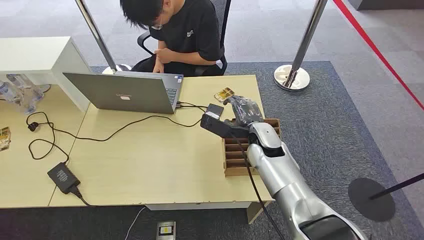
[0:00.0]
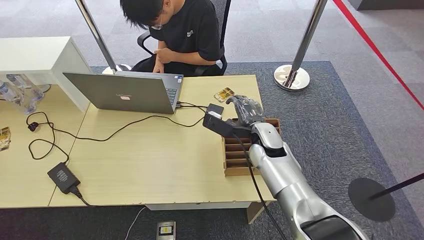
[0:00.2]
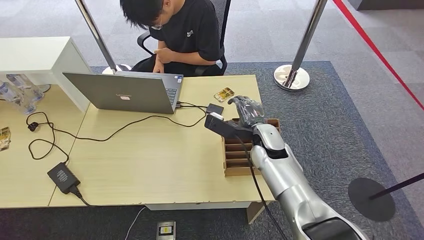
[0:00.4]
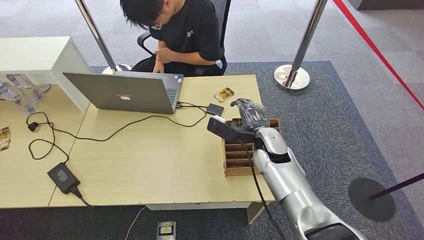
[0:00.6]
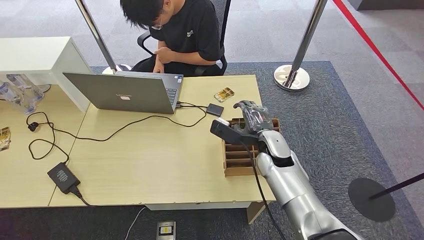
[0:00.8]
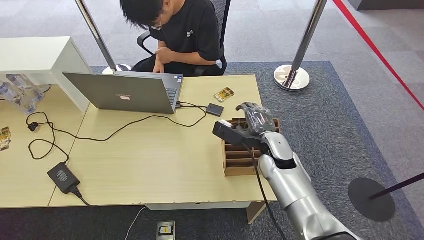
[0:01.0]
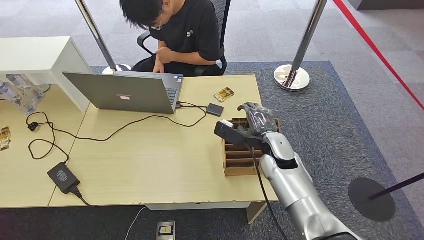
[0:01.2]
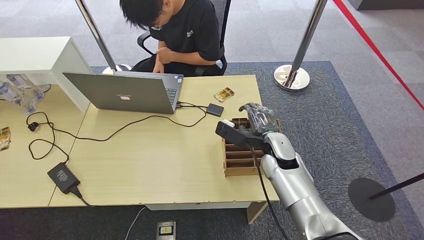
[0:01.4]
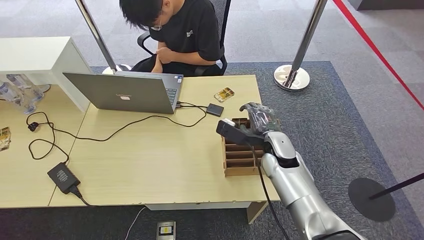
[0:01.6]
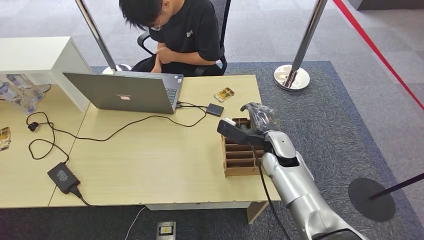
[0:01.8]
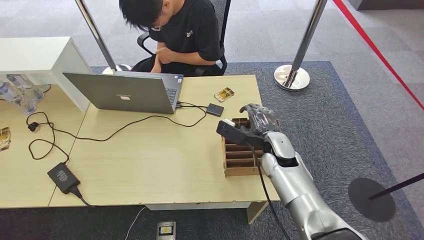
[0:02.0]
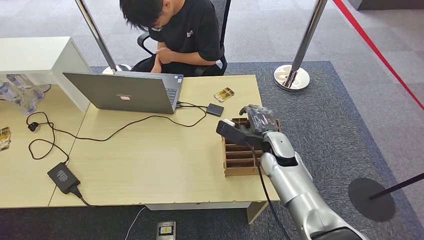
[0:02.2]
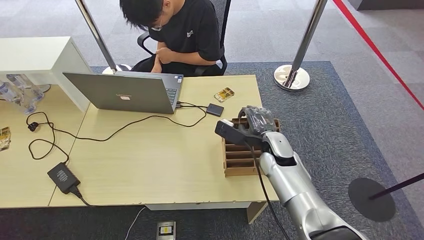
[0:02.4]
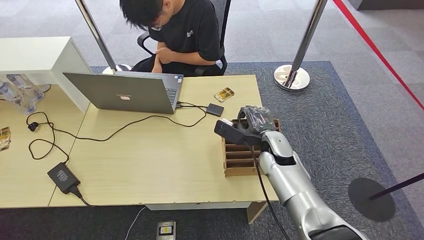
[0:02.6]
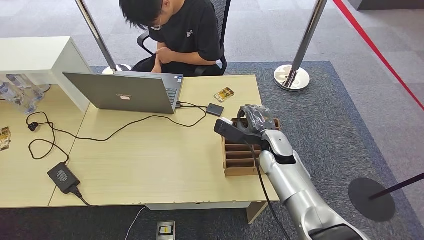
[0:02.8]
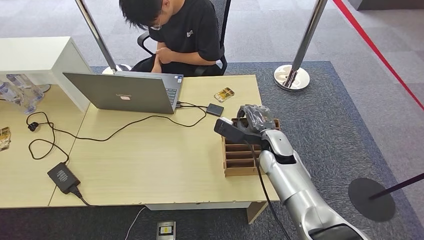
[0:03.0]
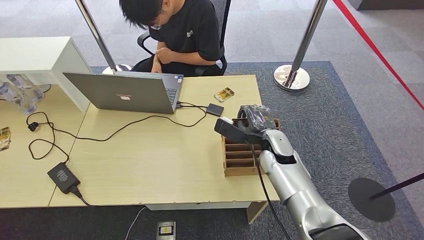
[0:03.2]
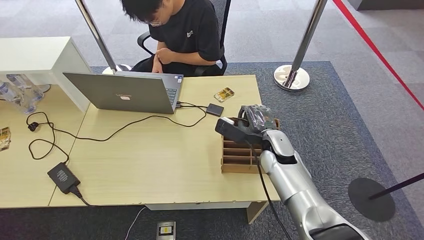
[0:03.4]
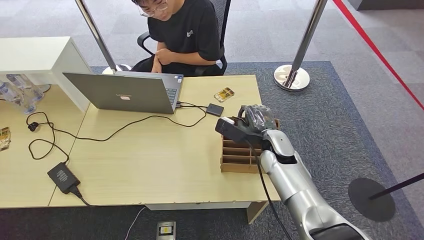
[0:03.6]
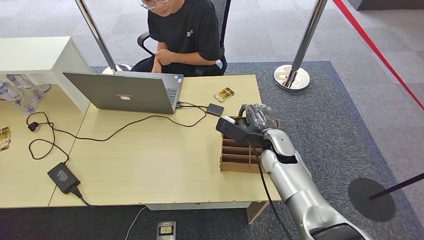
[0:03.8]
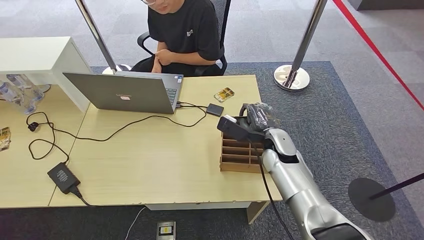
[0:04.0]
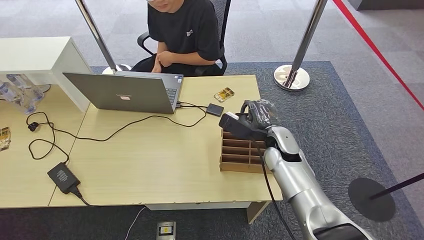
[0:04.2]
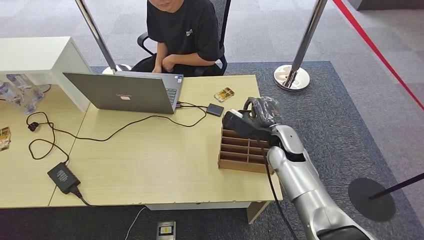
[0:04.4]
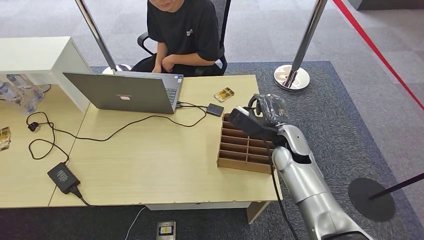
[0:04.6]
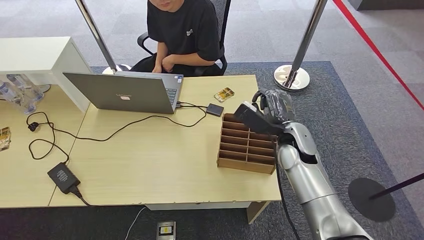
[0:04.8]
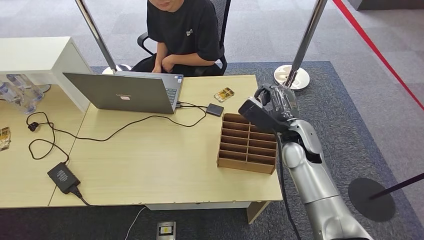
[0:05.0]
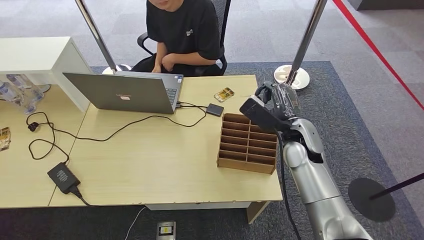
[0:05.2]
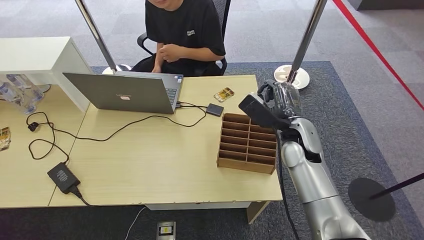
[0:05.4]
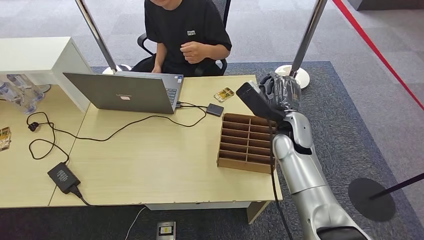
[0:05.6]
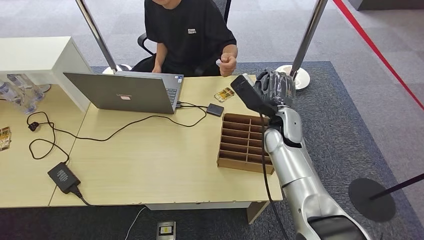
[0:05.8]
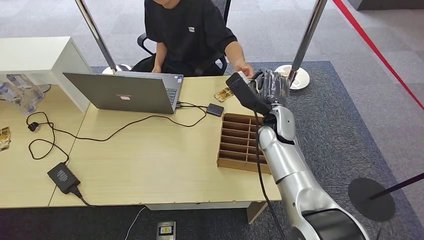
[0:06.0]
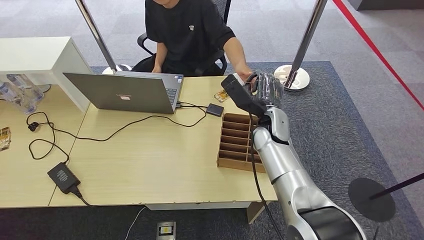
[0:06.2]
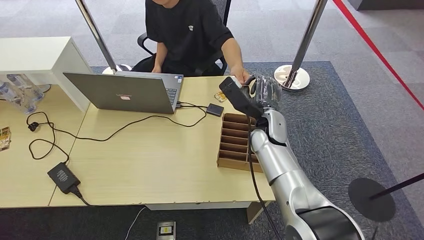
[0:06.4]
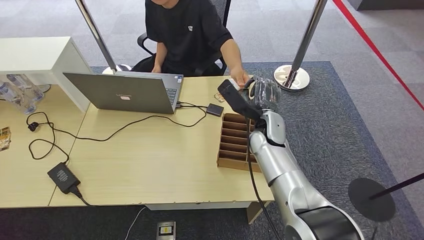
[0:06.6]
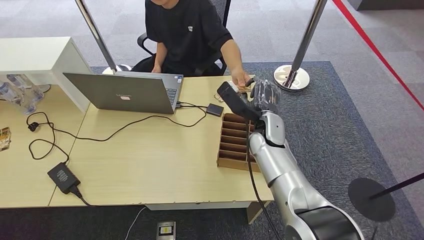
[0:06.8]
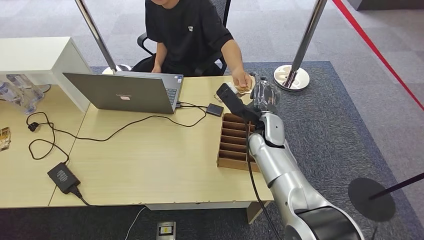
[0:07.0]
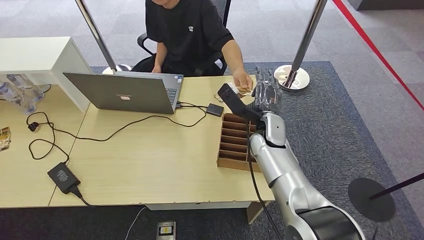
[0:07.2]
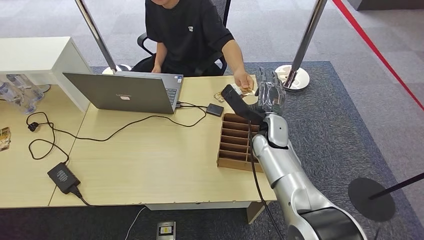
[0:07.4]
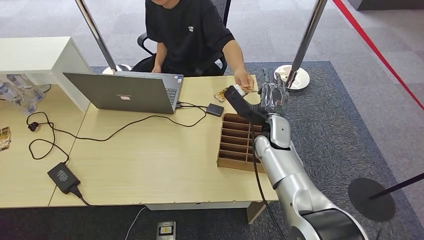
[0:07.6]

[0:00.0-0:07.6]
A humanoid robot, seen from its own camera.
Step, 0:00.0 to 0:05.2: Pick up the key card from the card box.
Step, 0:05.6 to 0:07.6: Hand the key card to the target.
0:01.6 to 0:03.0: Neither hand changes place.
0:03.0 to 0:04.6: The hands move only a little.
0:04.6 to 0:06.0: The right hand goes about 5 cm upward.
0:06.0 to 0:07.6: The hands move only a little.

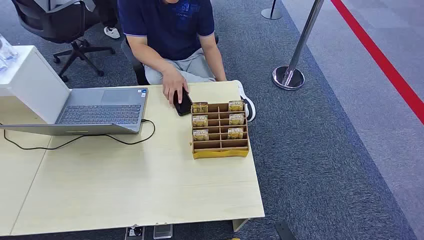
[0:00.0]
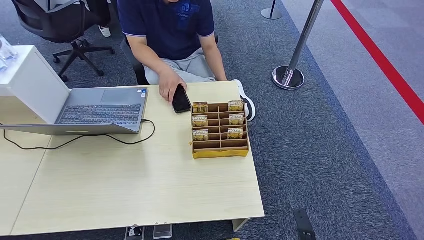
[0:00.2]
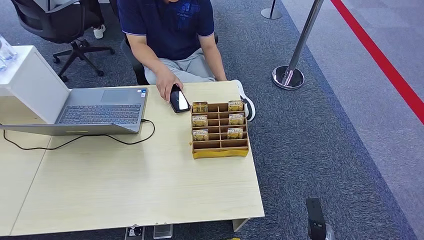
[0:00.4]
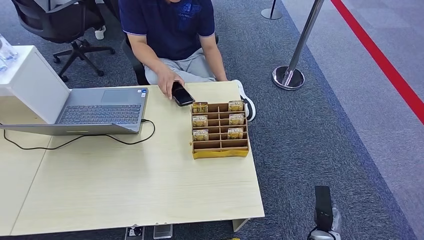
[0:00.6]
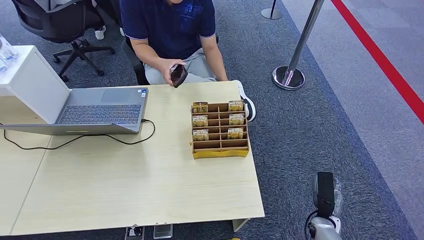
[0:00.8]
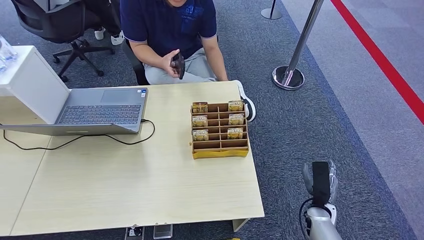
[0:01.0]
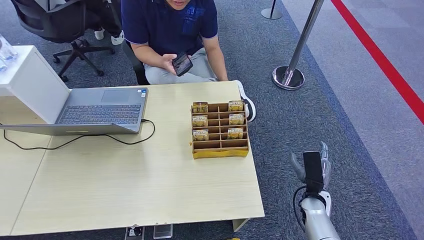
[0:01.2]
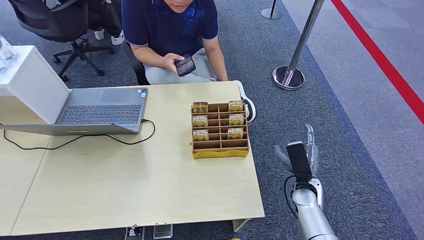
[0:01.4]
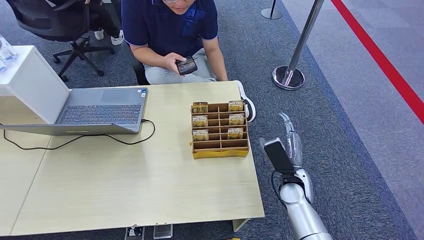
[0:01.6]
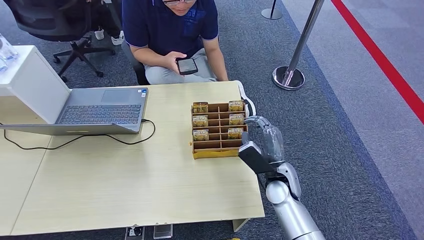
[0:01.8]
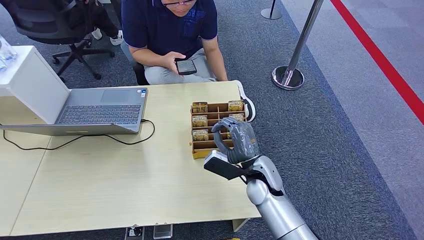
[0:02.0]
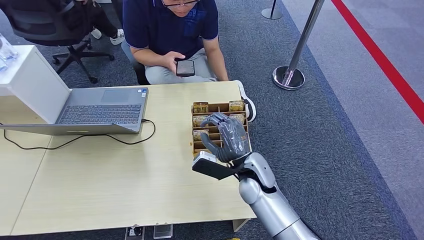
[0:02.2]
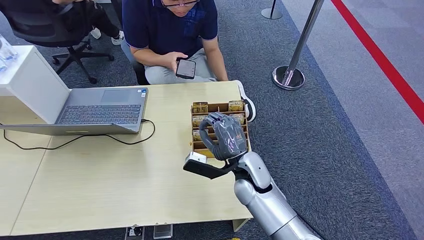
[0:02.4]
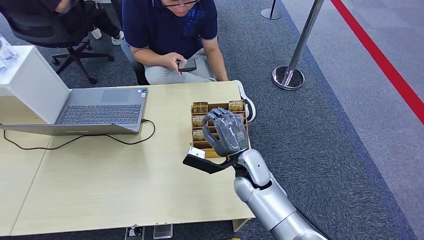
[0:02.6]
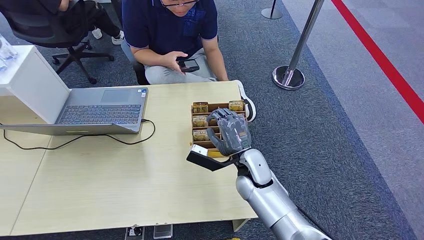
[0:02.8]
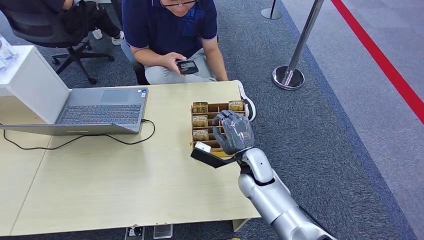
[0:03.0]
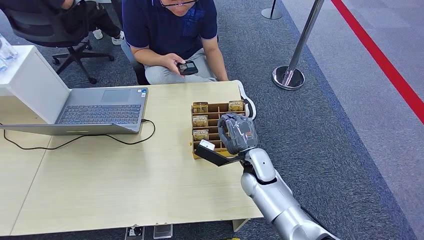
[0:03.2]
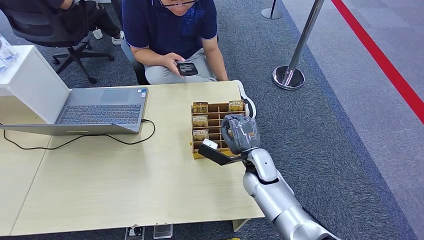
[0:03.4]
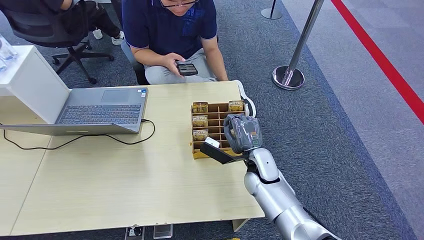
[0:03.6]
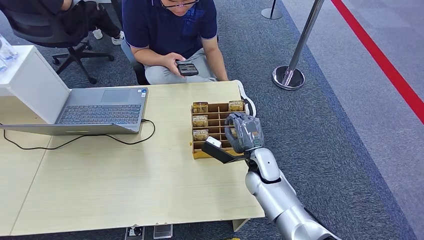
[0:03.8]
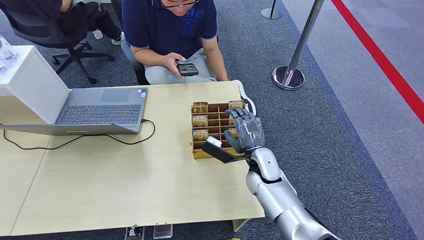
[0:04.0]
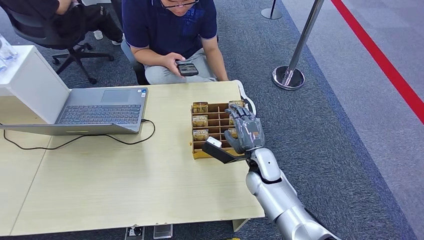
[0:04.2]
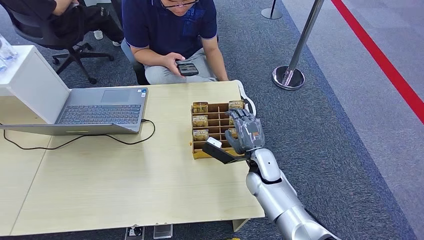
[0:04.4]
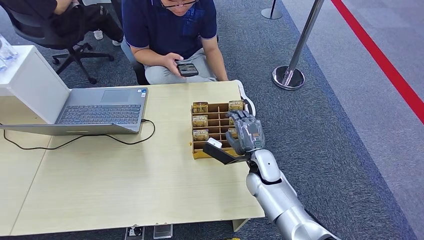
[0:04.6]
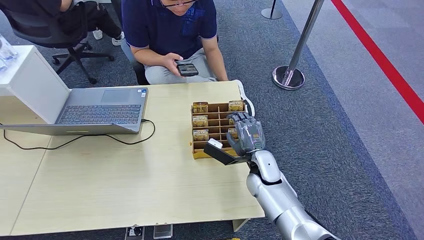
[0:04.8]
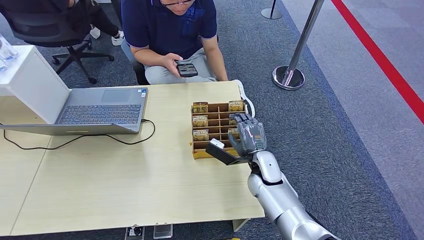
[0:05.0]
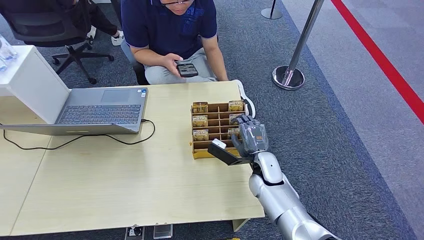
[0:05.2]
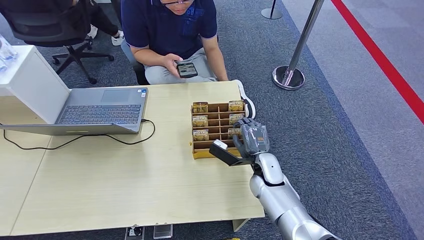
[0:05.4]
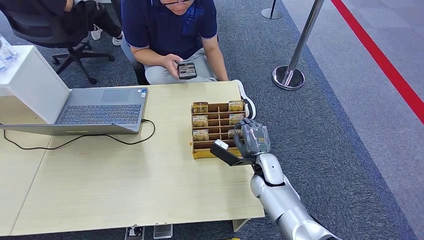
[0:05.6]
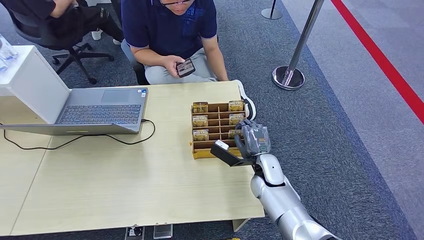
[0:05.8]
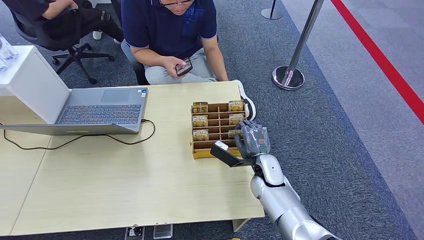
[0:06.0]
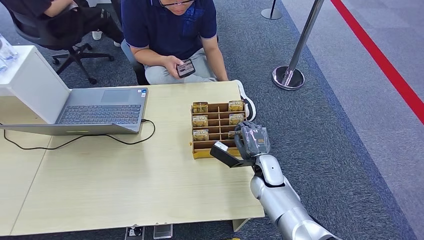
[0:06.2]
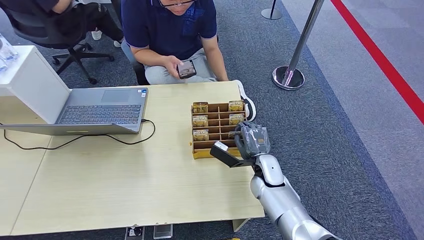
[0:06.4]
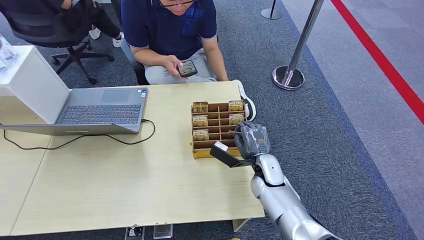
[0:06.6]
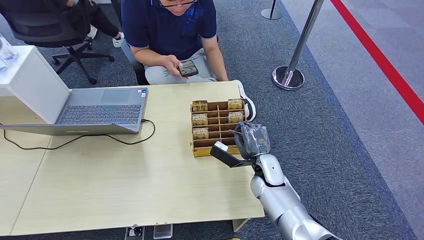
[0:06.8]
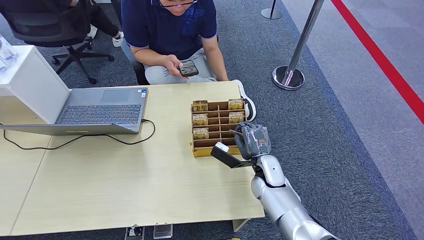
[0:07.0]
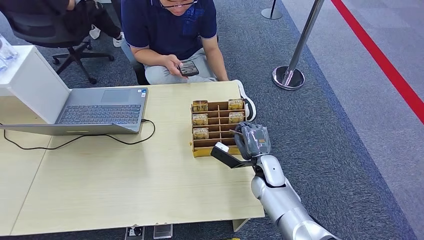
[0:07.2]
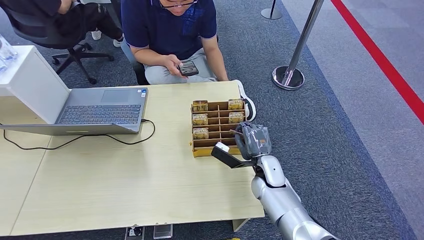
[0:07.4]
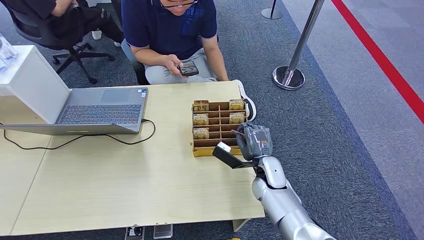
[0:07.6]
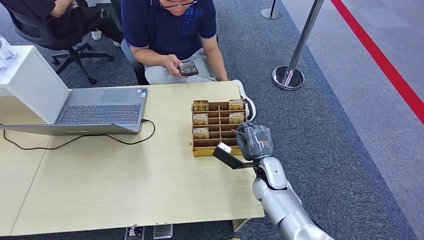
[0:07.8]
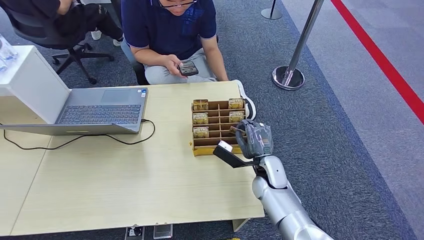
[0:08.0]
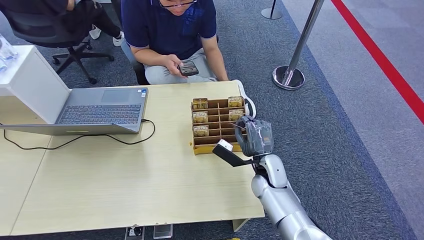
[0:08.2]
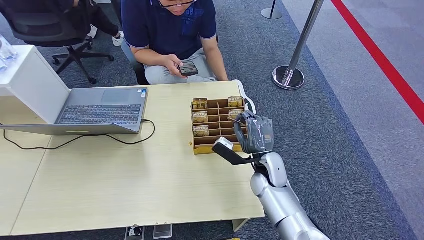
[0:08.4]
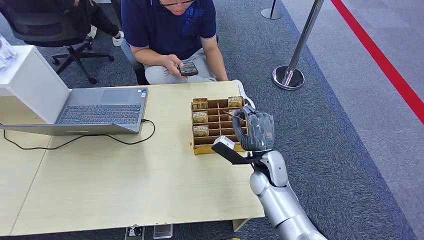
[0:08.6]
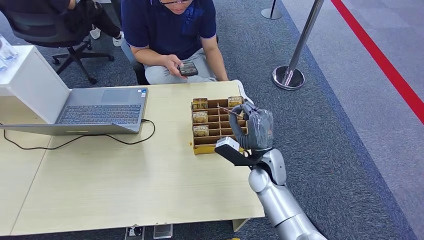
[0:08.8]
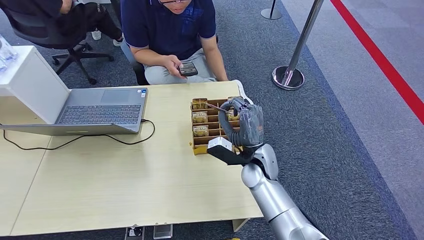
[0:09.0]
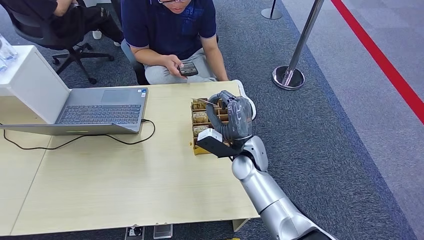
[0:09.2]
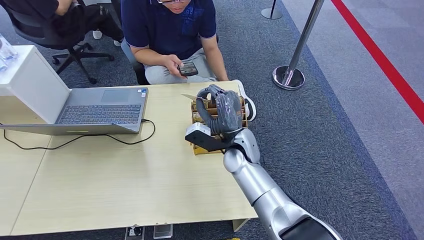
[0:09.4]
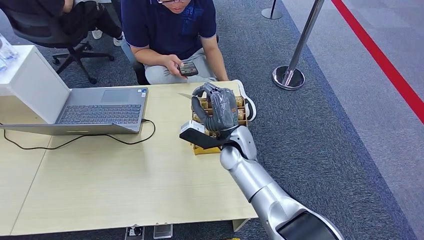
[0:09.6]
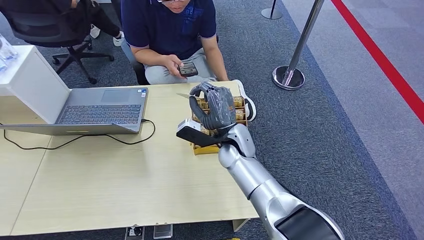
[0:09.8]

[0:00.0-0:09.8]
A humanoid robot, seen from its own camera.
Step, 0:00.0 to 0:07.6: Pick up the key card from the card box.
Step, 0:07.8 to 0:09.8: Hand the key card to the target.
0:01.4 to 0:02.8: The right hand heads to the left and upward, covering about 20 cm.
0:02.8 to 0:04.2: The hands stay close to where they were, moving slightly.
0:04.2 to 0:05.6: The hands move only a little.
0:05.6 to 0:07.0: The two hands keep their place.
0:07.0 to 0:08.4: There are only small adjustments of the hands.
0:08.4 to 0:09.8: The right hand heads to the left, upward and forward, covering approximately 15 cm.
